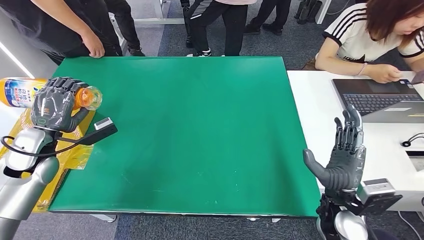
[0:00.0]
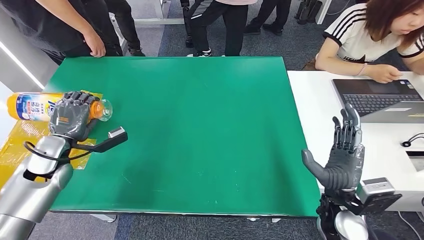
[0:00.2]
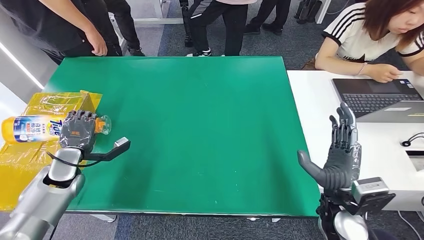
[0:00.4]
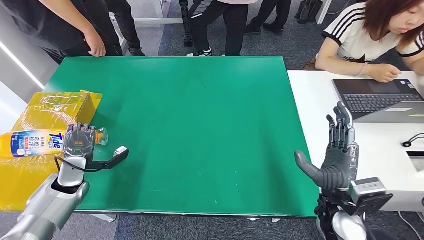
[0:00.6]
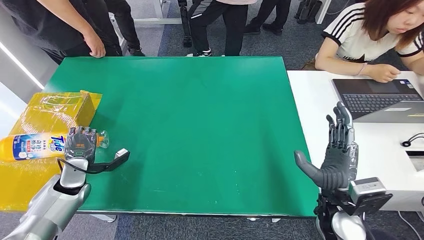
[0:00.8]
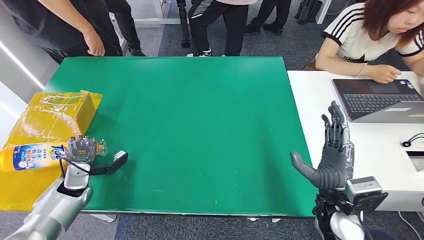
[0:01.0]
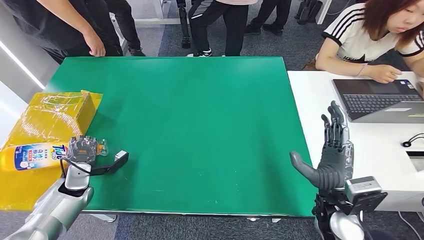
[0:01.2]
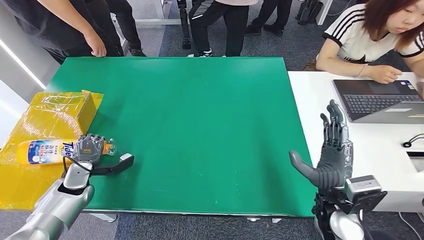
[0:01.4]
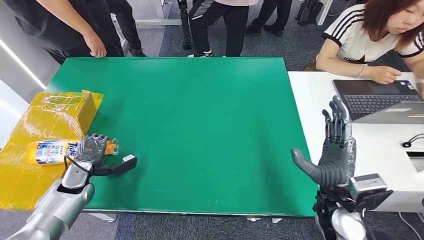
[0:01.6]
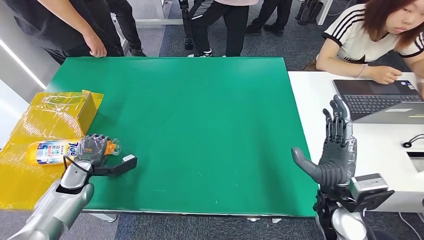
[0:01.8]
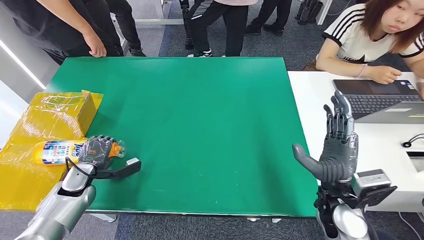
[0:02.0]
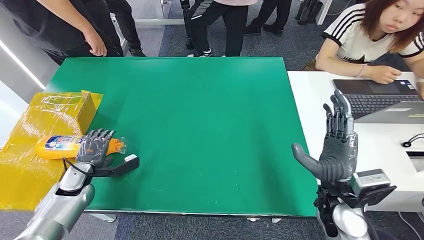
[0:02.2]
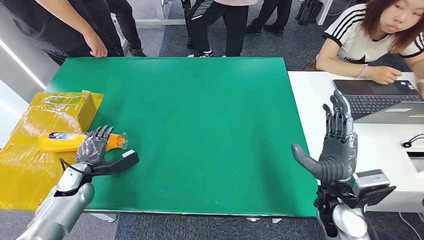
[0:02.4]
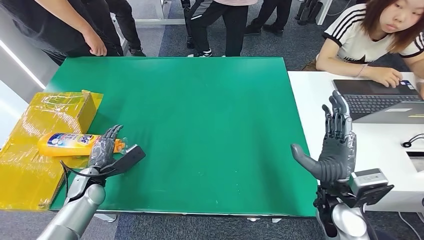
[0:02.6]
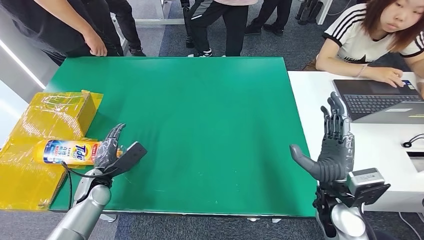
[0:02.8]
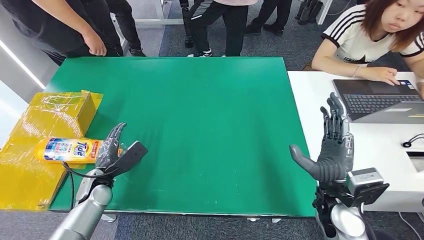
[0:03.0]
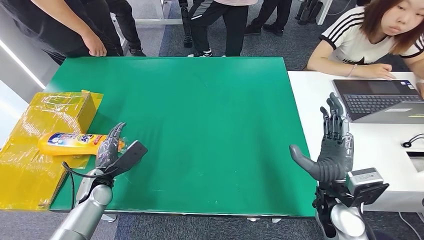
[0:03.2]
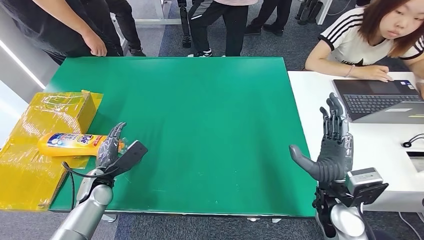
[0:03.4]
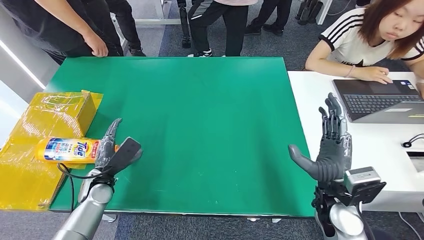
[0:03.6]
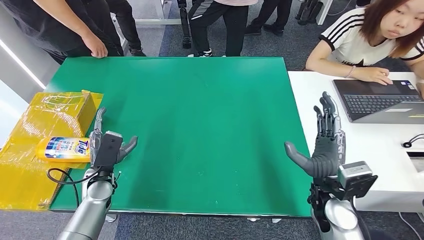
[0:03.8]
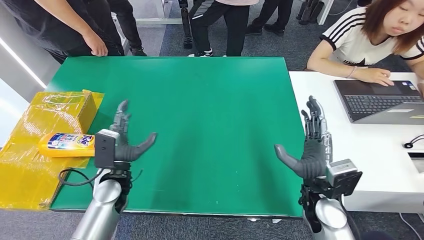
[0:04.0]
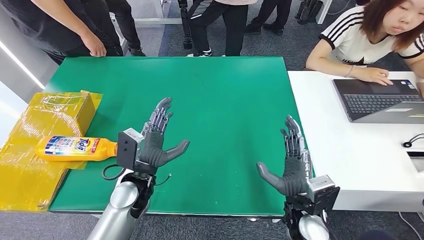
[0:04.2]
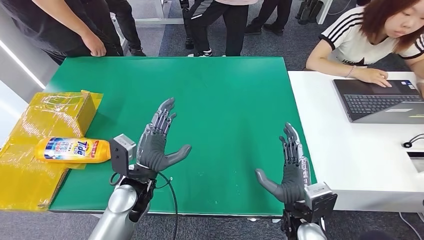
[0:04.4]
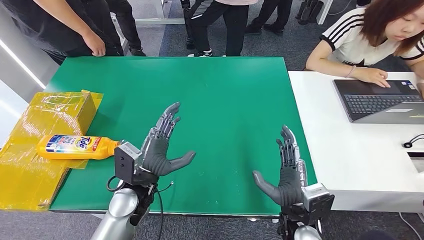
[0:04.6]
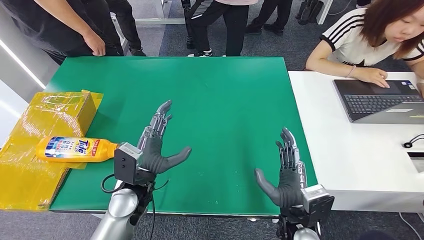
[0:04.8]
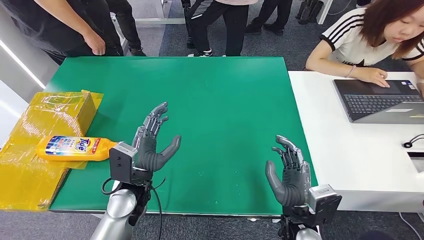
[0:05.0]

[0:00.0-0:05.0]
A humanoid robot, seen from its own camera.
Step, 0:00.0 to 0:05.0: Turn the bottle to the front side.
0:01.6 to 0:03.4: The left hand moves to the right, roughly 5 cm.
